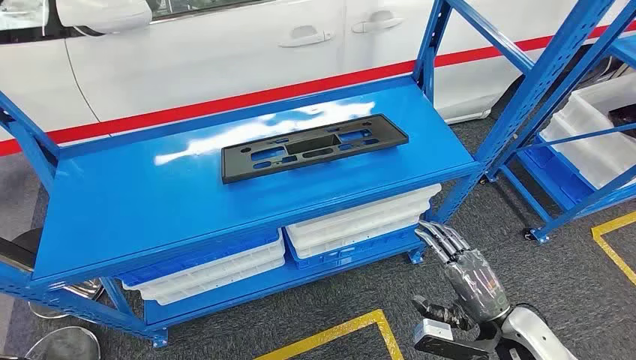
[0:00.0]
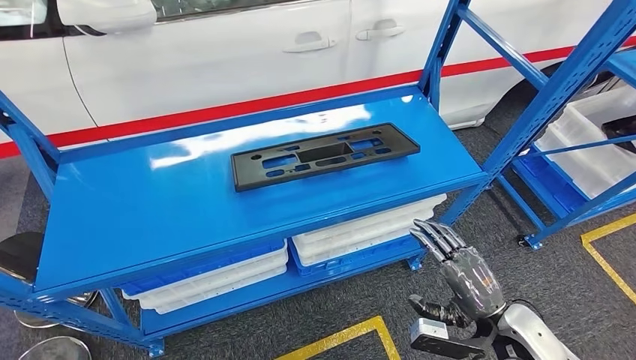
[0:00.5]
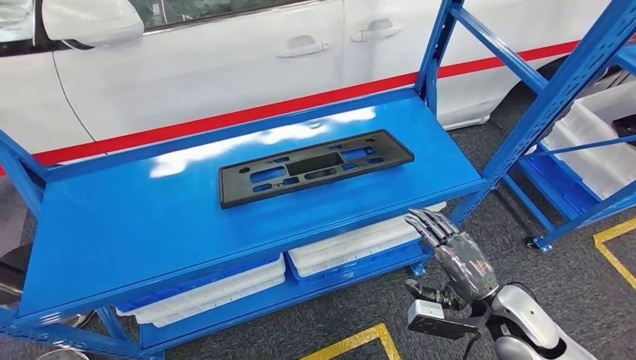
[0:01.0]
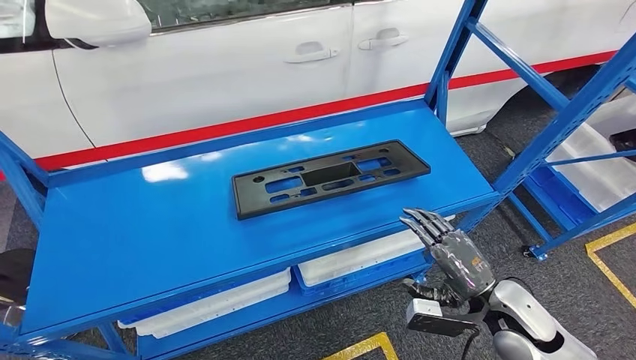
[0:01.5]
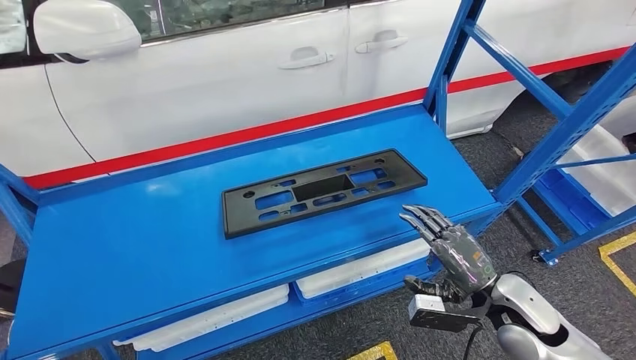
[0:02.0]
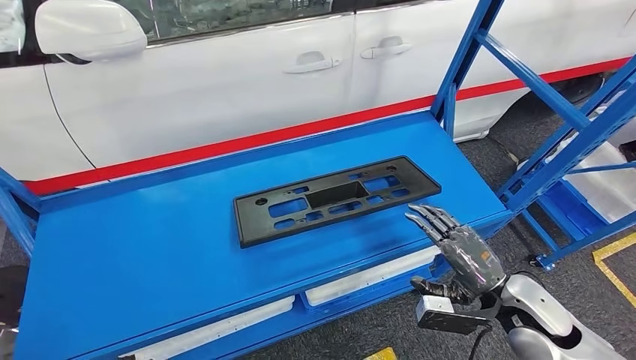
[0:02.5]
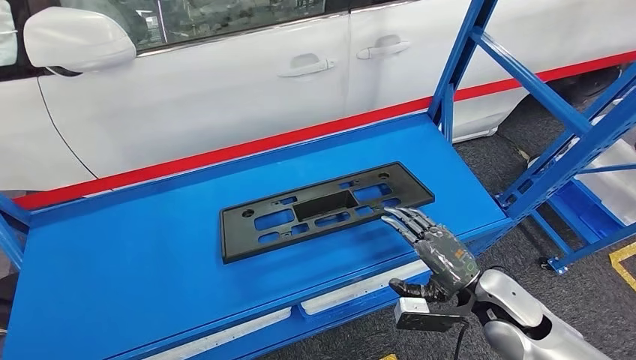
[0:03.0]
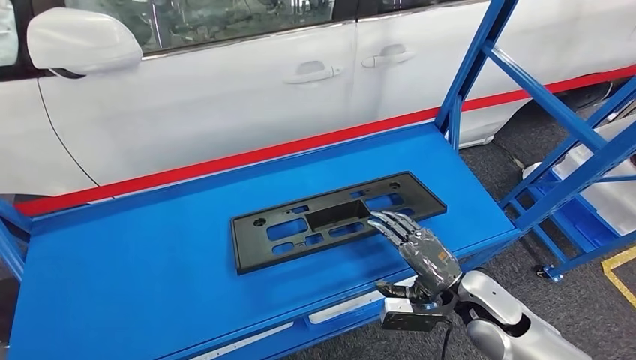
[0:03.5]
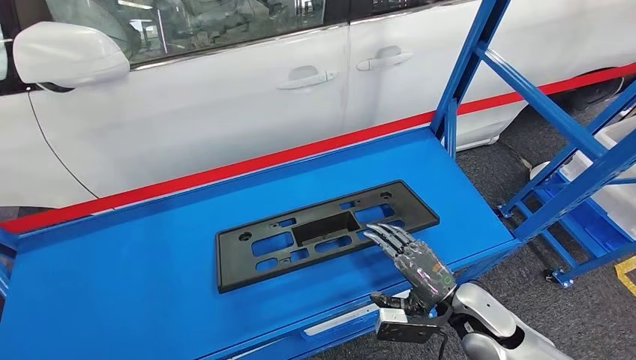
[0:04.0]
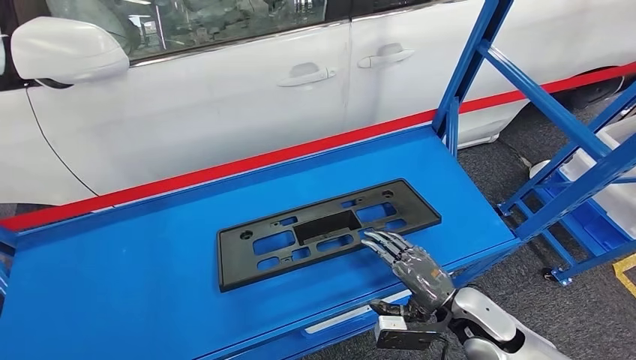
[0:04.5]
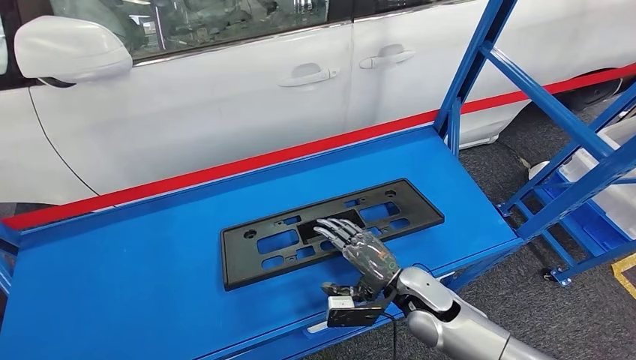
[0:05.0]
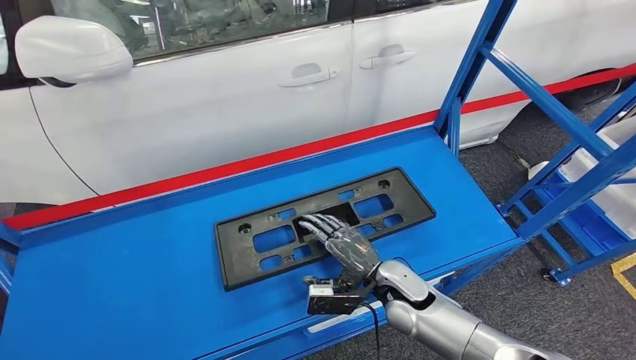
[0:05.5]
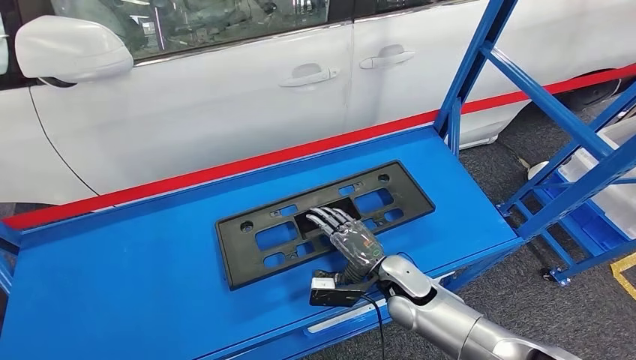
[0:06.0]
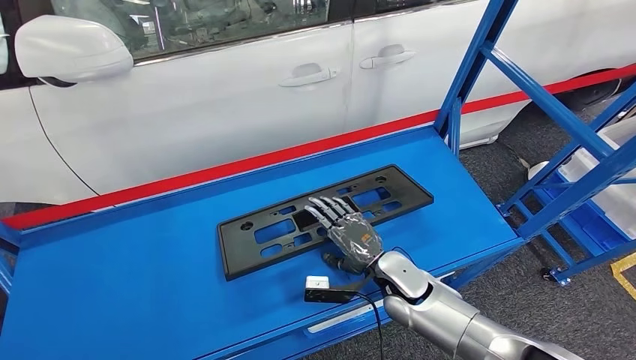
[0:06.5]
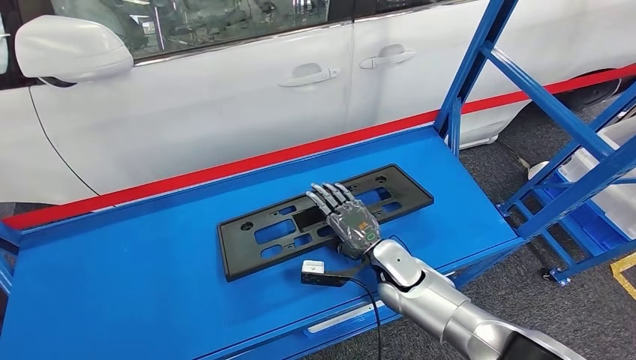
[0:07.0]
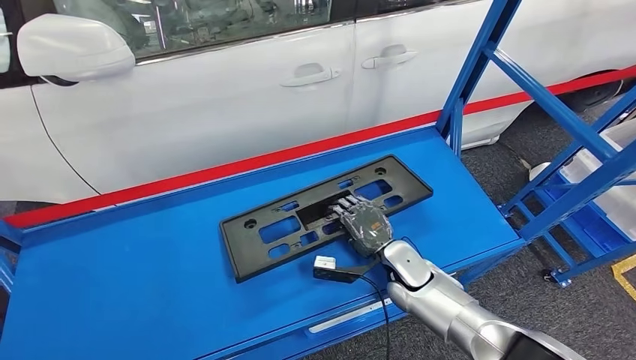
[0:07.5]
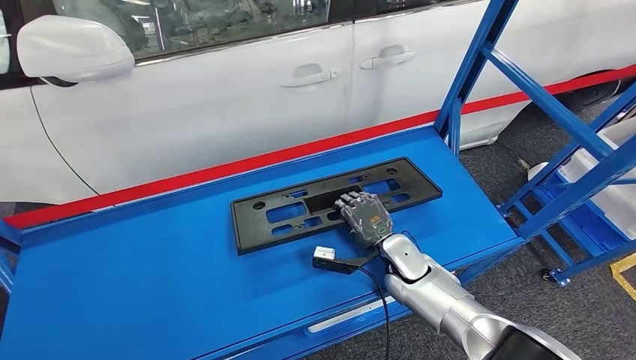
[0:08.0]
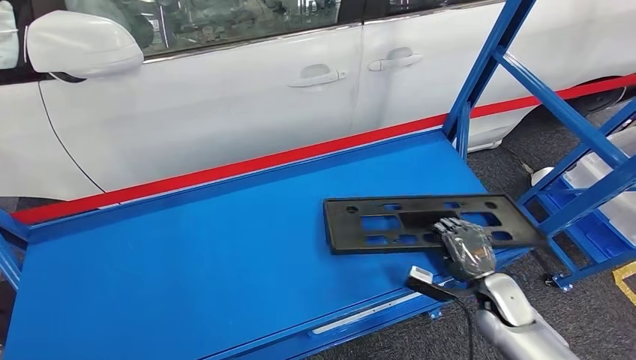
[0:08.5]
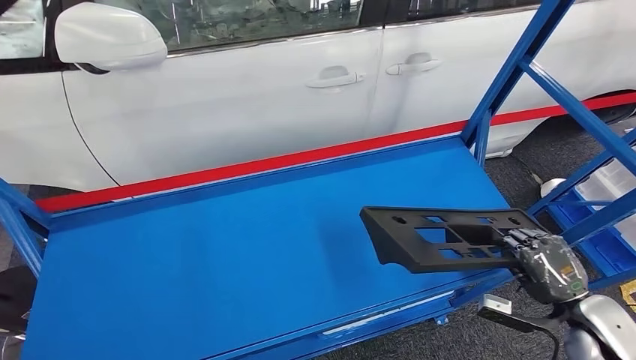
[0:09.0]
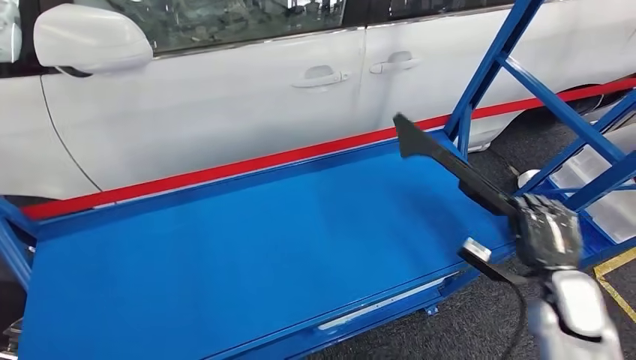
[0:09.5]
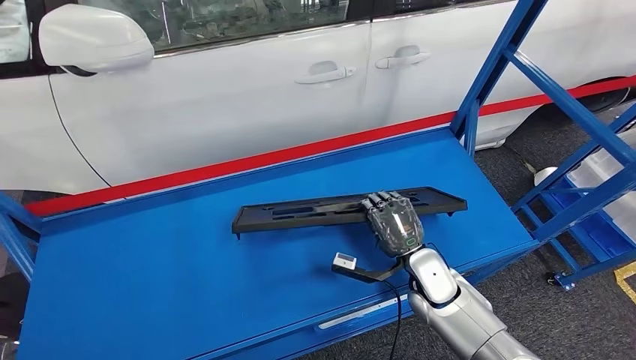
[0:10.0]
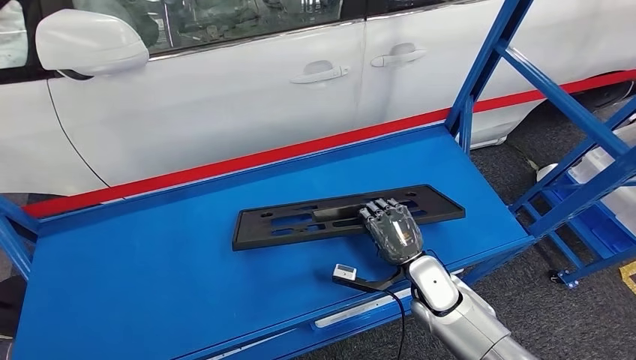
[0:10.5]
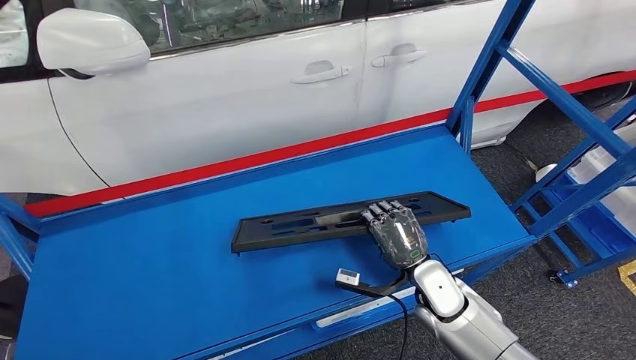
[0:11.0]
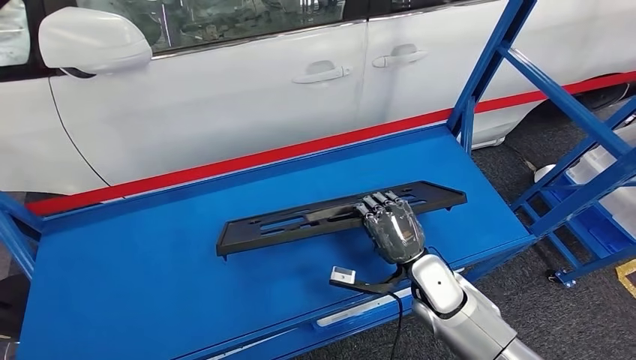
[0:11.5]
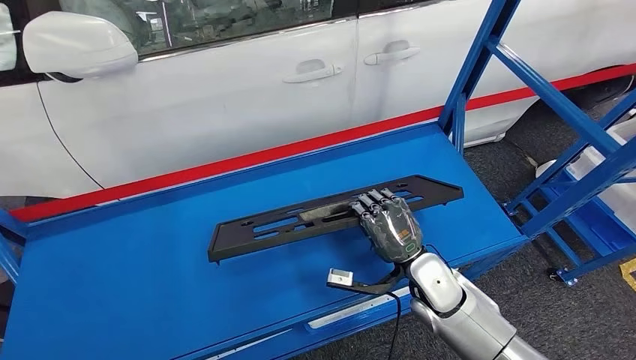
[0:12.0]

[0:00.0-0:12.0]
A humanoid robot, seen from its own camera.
0:04.0 to 0:06.0: The right hand is displaced to the left and forward by approximately 15 cm.
0:06.0 to 0:08.0: The right hand changes place by approximately 5 cm.

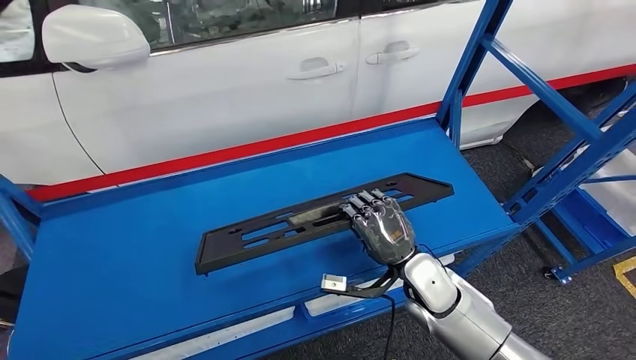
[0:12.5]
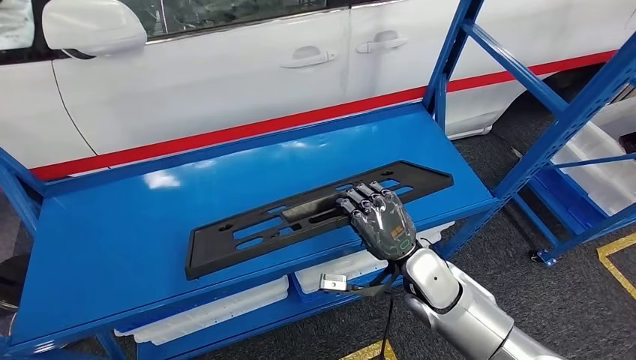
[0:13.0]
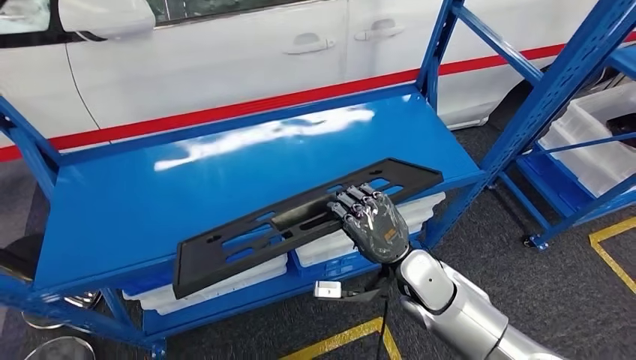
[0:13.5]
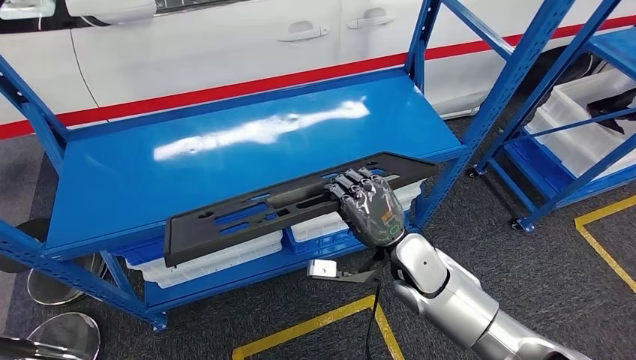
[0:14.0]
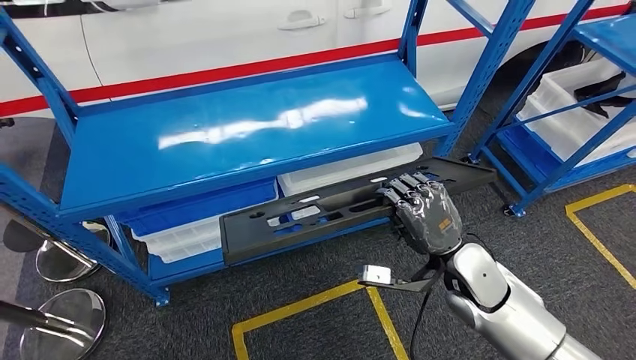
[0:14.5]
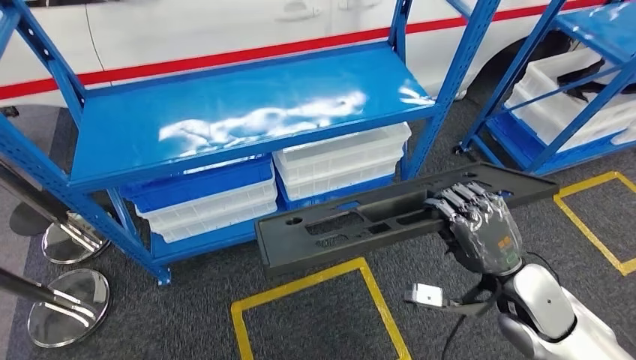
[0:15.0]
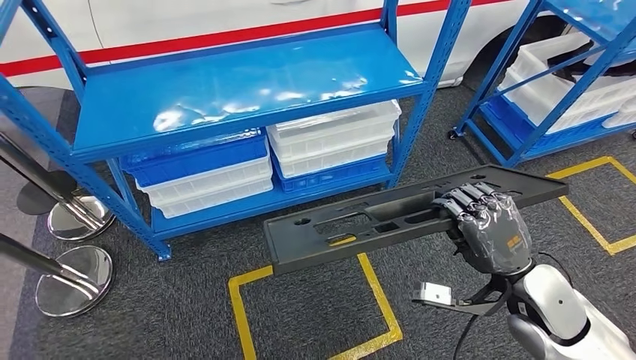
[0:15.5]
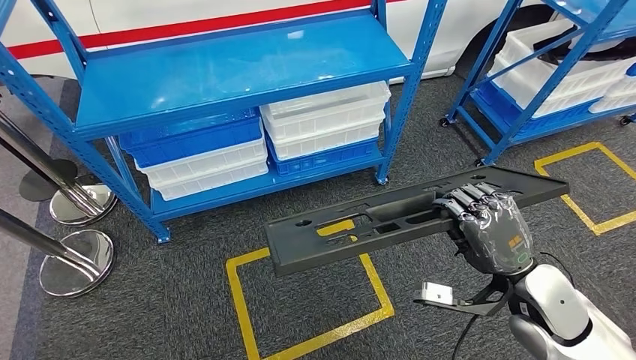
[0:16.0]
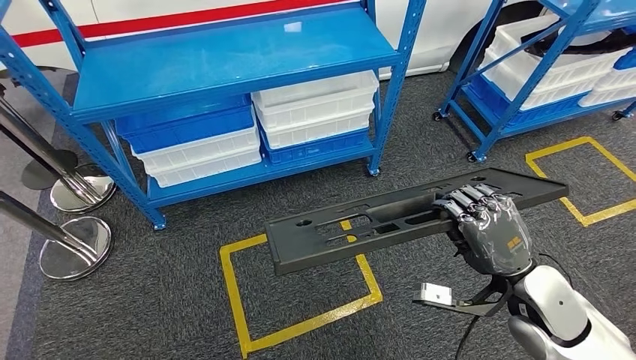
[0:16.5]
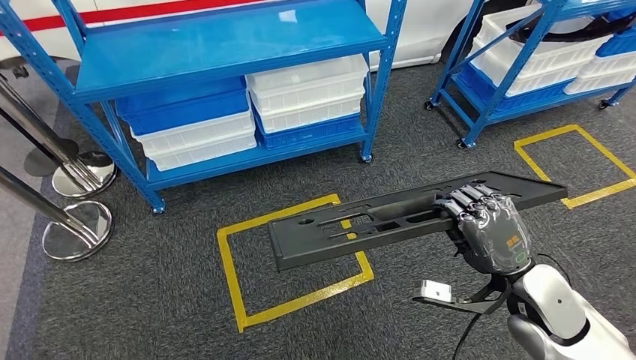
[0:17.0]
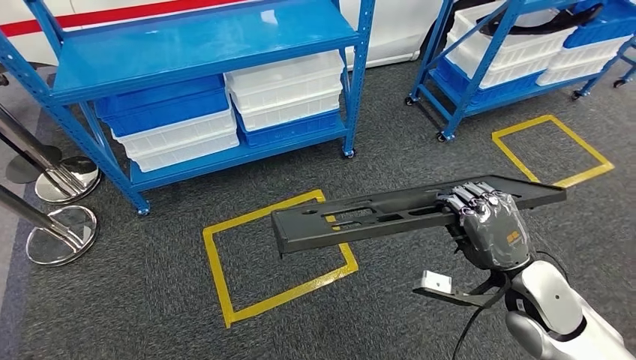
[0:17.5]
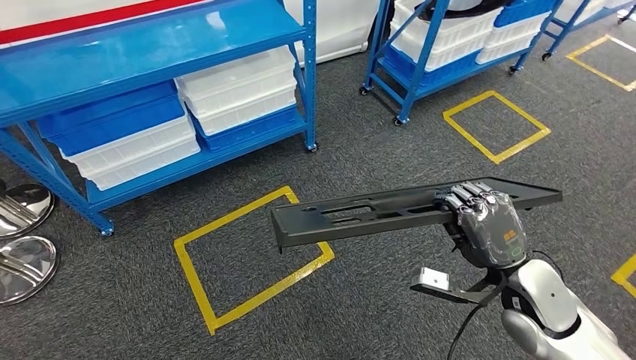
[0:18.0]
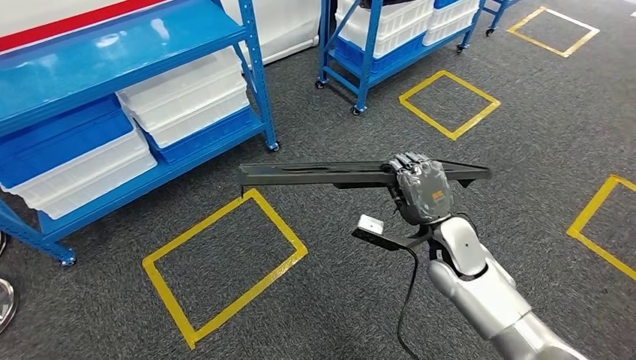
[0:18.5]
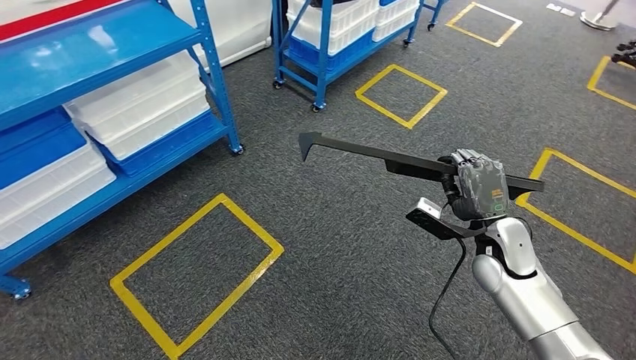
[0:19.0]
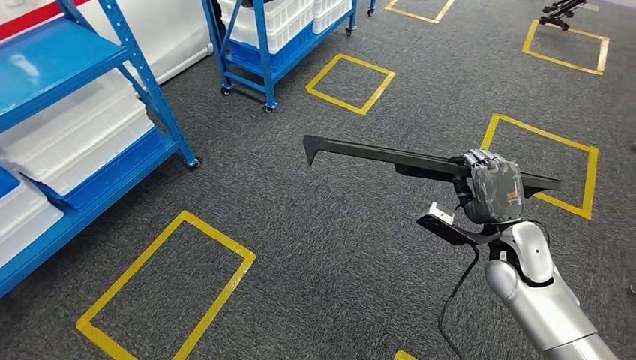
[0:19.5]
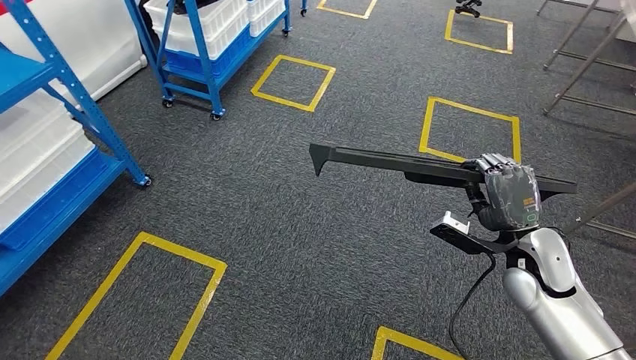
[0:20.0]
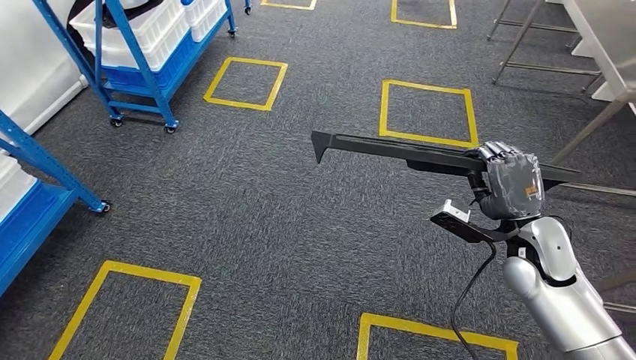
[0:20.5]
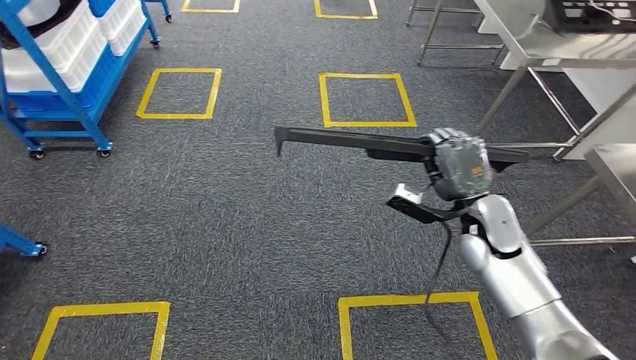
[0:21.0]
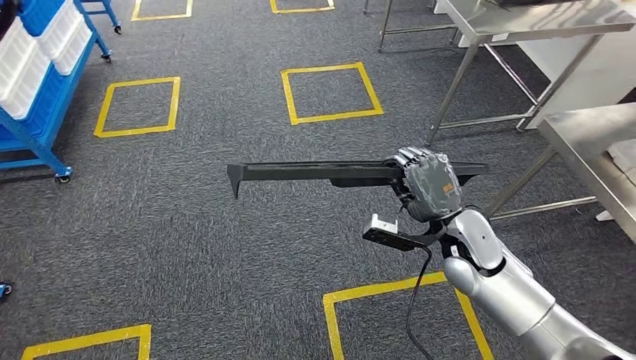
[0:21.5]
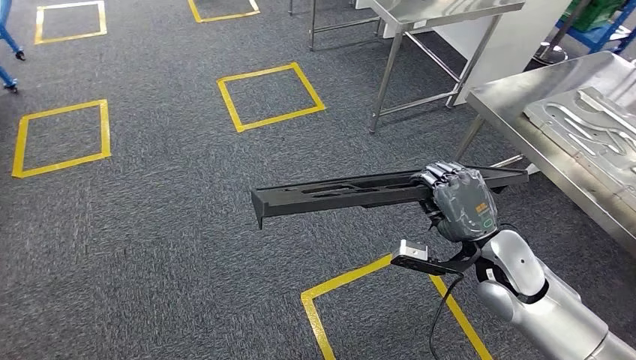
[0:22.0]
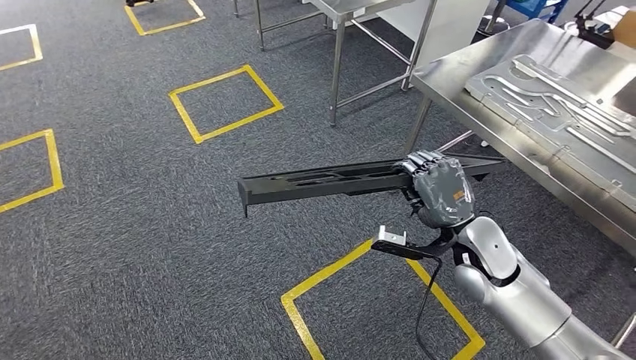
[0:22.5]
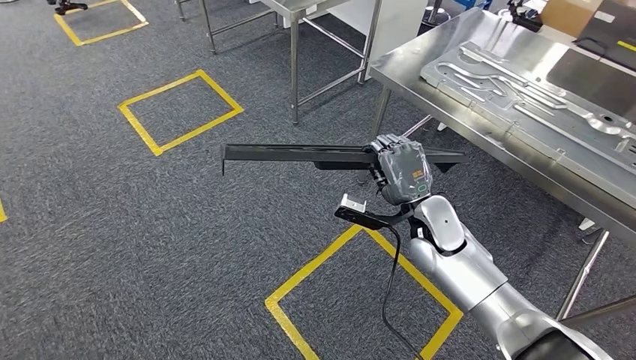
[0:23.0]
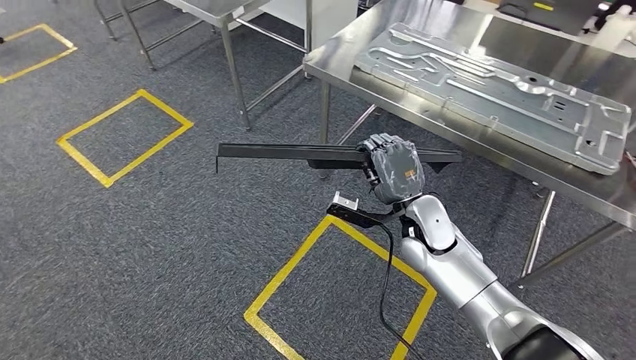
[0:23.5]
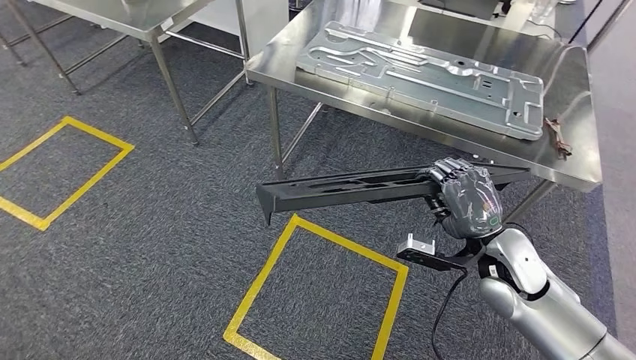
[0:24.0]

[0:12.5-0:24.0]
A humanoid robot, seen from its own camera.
Step, 0:12.5 to 0:15.0: Pick up the large material from the shelf.
